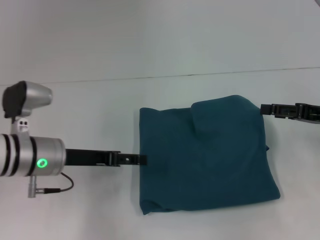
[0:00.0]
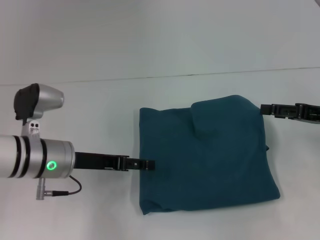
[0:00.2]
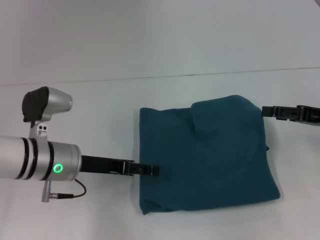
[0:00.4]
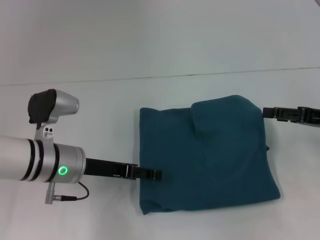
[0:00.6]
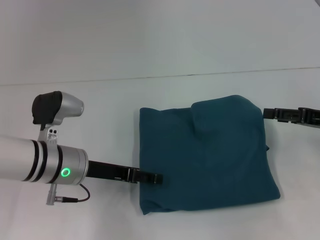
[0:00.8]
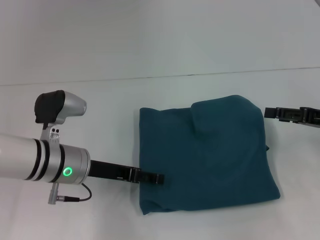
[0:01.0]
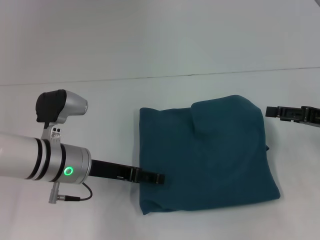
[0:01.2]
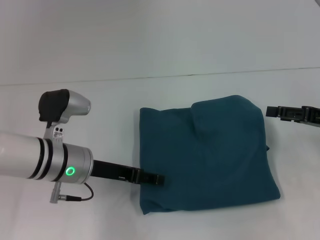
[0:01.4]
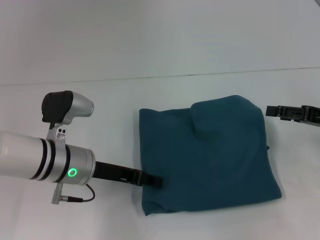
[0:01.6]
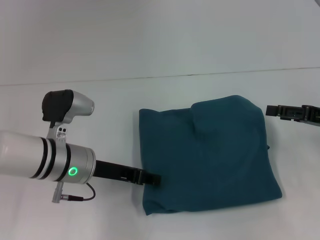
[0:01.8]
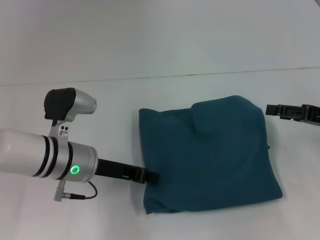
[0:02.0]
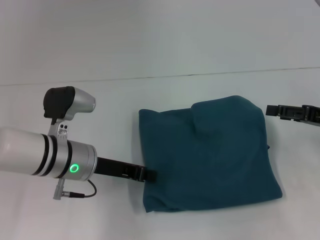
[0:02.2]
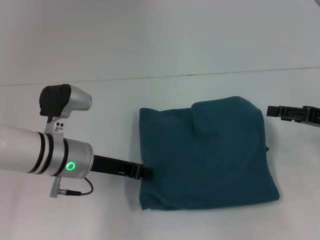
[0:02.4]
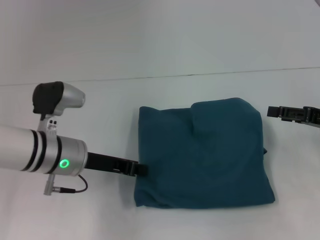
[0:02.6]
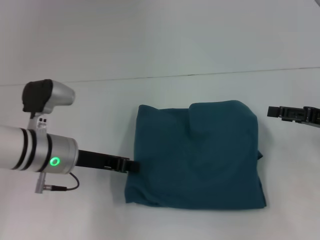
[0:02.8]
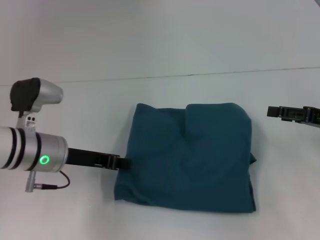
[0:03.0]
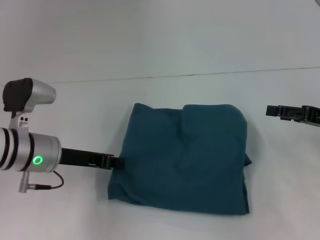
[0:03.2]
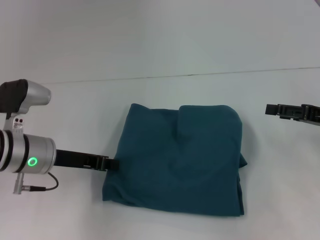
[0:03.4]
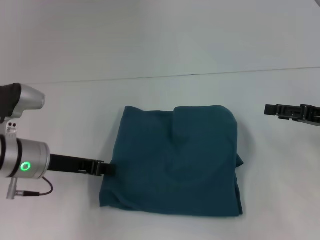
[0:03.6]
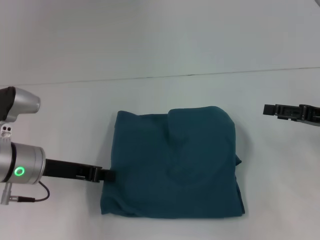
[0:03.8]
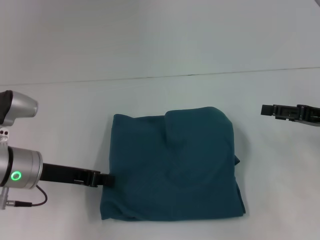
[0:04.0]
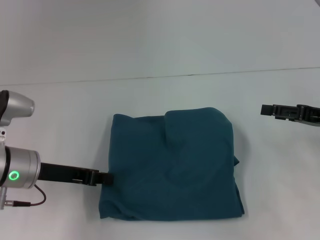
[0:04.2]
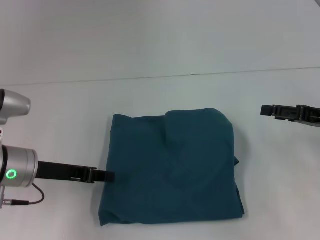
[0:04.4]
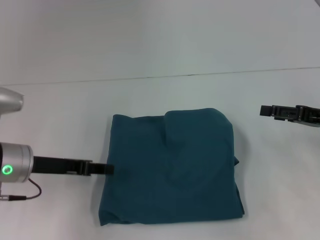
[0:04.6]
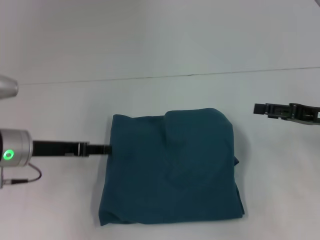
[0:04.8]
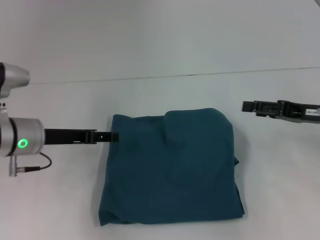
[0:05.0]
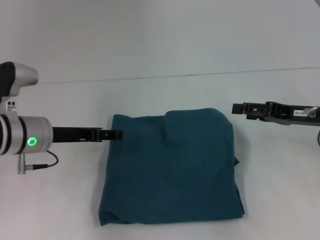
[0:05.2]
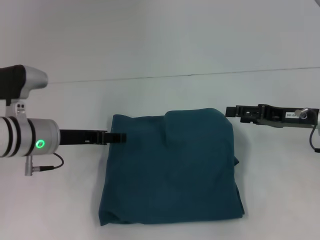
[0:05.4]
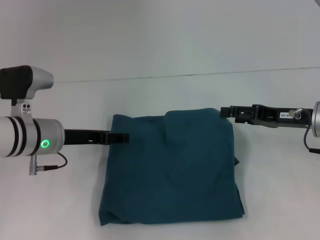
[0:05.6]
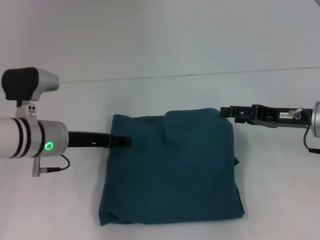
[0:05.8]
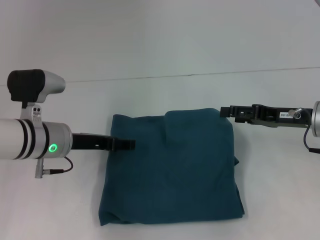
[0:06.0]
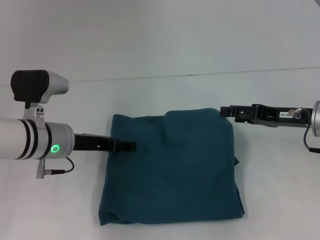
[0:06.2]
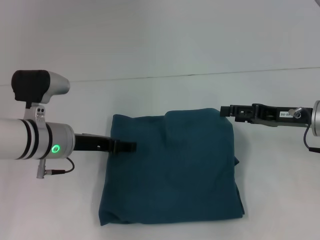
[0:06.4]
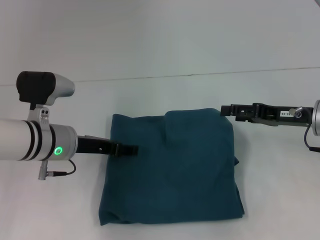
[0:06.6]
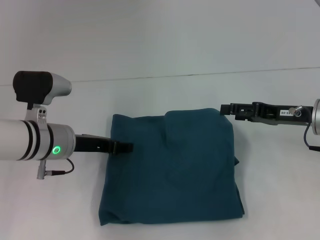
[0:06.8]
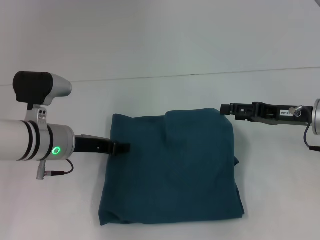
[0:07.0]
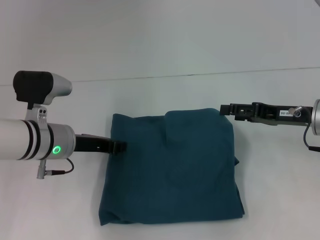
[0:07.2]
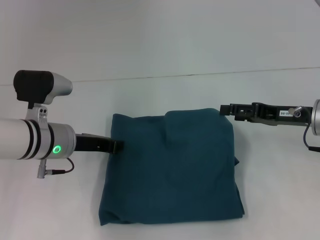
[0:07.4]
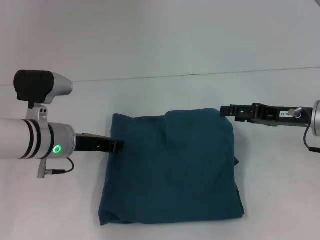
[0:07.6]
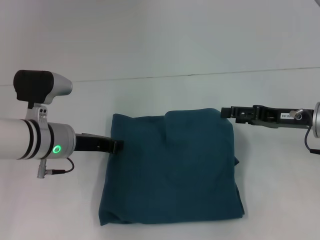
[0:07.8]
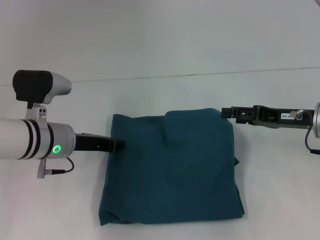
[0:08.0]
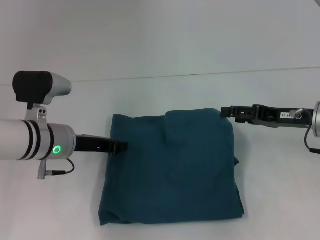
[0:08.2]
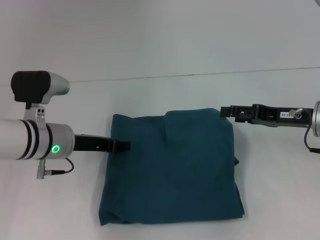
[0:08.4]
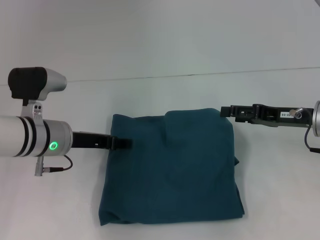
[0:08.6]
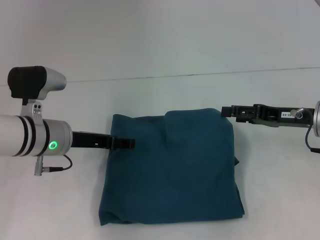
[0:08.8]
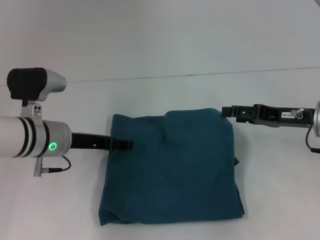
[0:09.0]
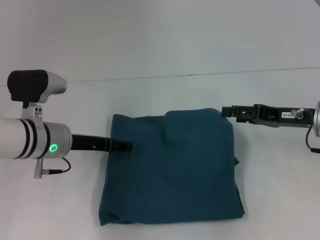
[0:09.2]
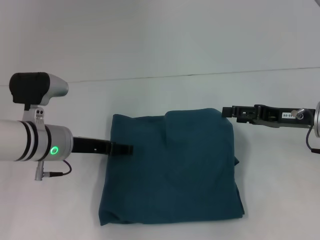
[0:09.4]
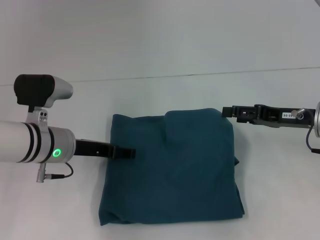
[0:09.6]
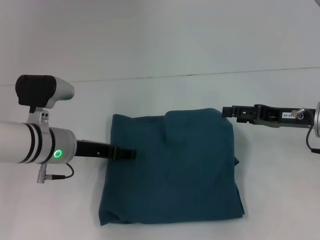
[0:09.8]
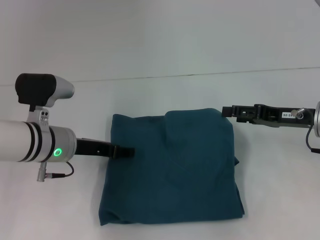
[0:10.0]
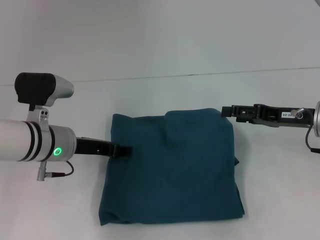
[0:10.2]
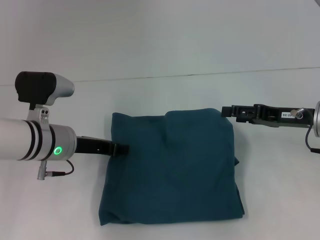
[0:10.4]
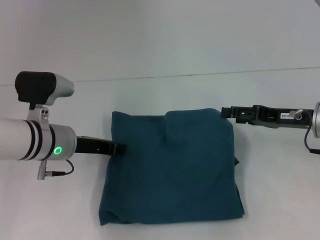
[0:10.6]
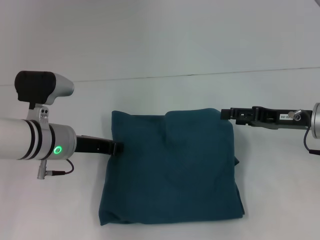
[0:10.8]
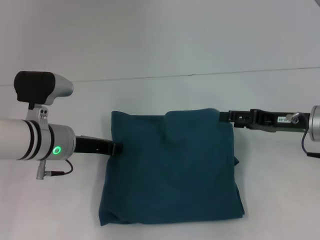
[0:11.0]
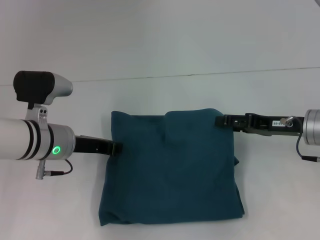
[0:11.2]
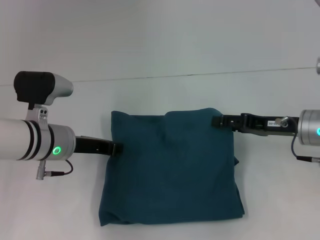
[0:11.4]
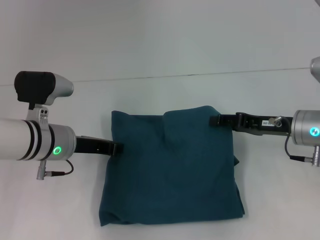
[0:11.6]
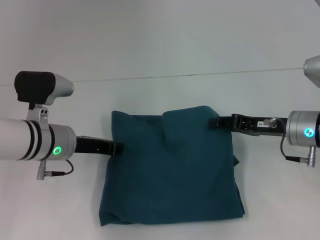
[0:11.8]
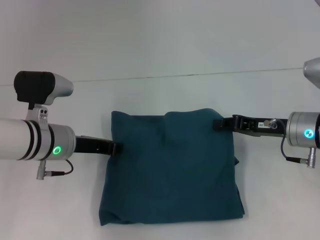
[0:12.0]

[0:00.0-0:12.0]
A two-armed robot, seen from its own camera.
0:00.0 to 0:01.6: The grippers stay close to where they were, moving slightly.
0:01.6 to 0:03.0: The left gripper closes up.
0:04.4 to 0:06.0: The left gripper changes place by approximately 5 cm, and opens. The right gripper goes roughly 5 cm to the left.
0:06.0 to 0:07.6: The left gripper closes up.
0:07.6 to 0:09.0: The left gripper opens its fingers.
0:09.0 to 0:10.4: The two grippers keep their place.
0:10.4 to 0:12.0: The left gripper closes its fingers; the right gripper closes its fingers.

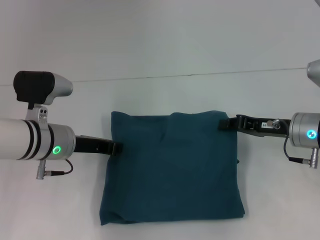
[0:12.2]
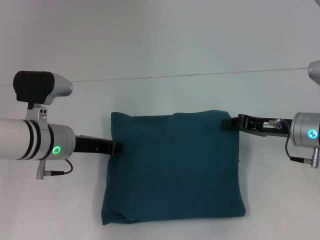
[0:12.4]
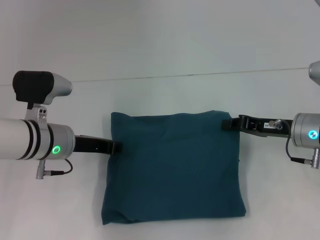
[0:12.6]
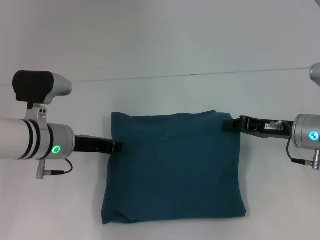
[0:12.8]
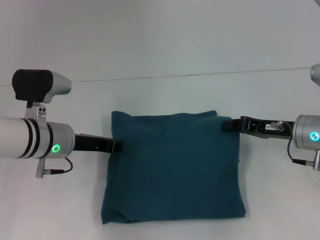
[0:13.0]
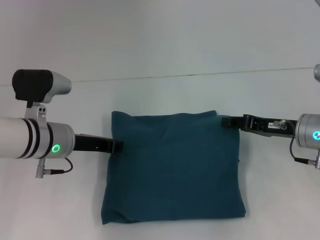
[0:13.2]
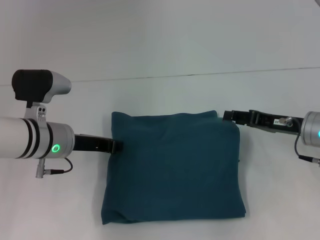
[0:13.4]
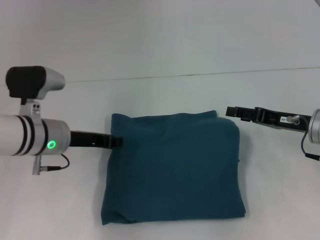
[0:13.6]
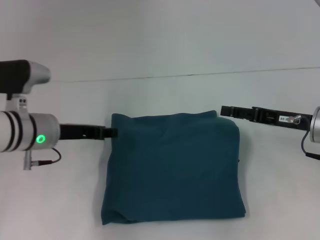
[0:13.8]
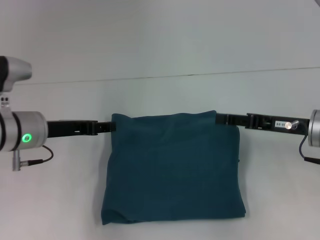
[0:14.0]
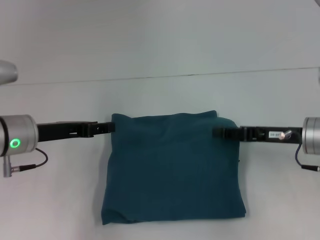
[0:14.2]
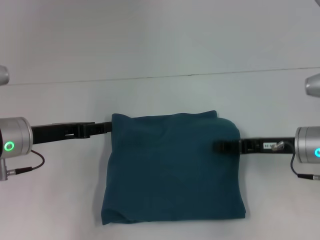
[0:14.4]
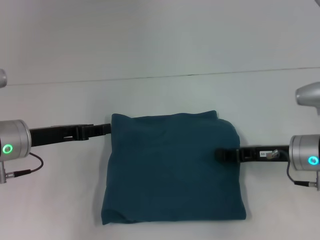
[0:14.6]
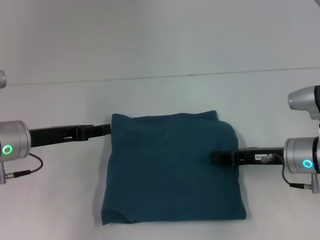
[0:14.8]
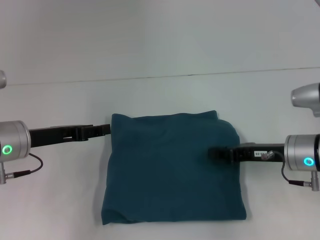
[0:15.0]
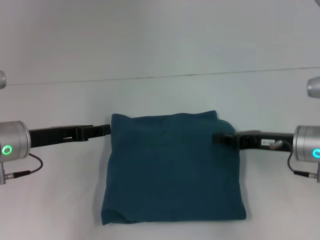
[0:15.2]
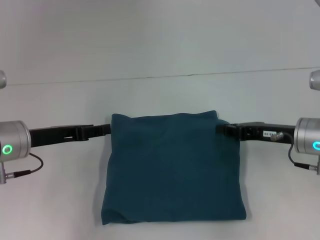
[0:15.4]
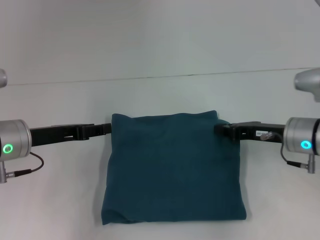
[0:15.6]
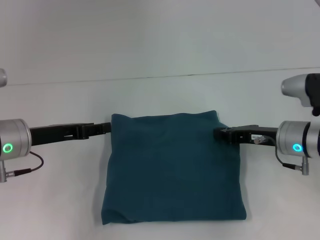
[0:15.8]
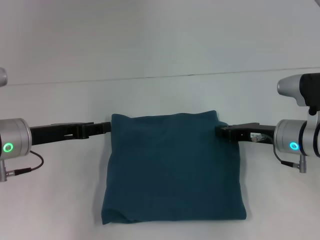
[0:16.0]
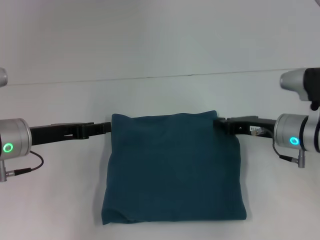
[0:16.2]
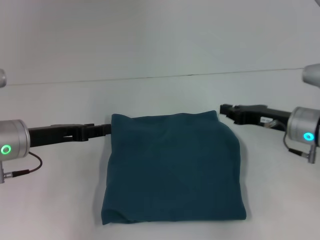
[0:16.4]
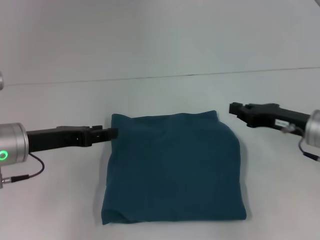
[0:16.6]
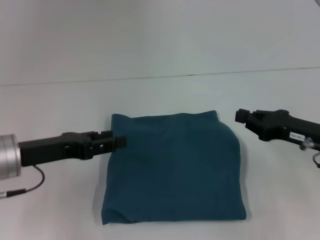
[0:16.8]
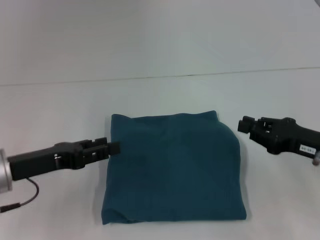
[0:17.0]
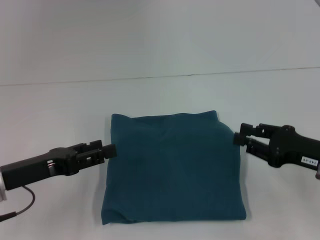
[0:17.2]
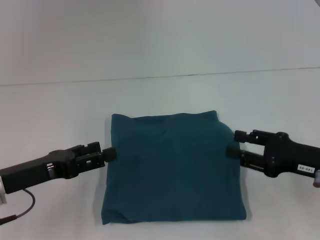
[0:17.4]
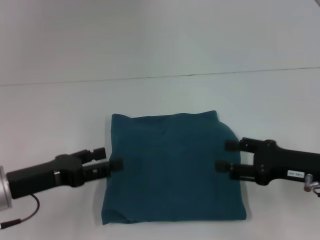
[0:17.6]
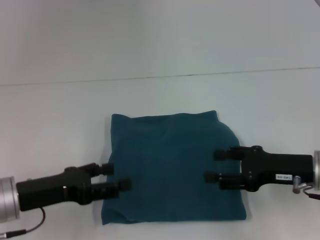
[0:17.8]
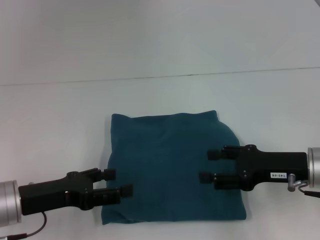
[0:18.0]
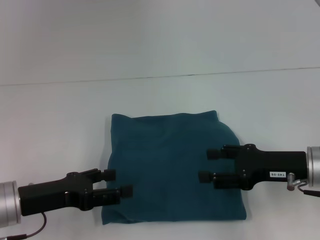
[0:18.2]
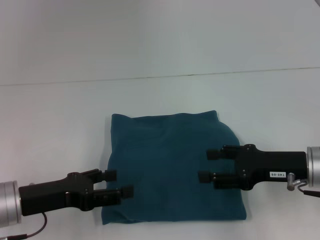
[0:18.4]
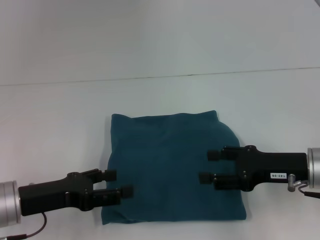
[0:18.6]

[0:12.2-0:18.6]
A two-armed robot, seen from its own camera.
0:12.2 to 0:13.8: The right gripper opens its fingers.
0:13.8 to 0:15.4: The left gripper shifts by some 5 cm. The right gripper closes.
0:15.4 to 0:17.0: Both grippers move backward, some 5 cm.
0:17.0 to 0:18.6: The right gripper opens up.

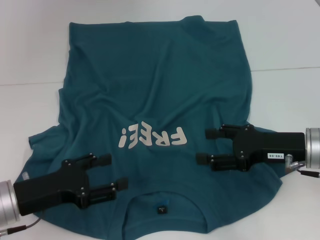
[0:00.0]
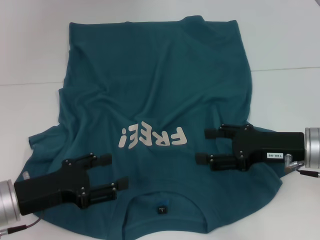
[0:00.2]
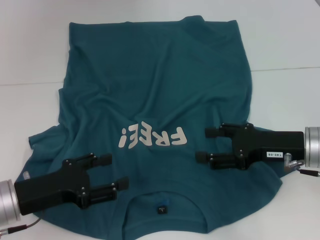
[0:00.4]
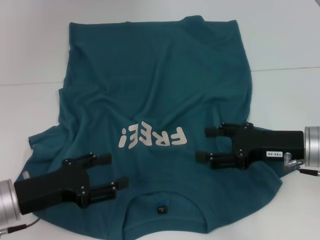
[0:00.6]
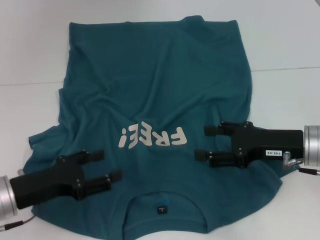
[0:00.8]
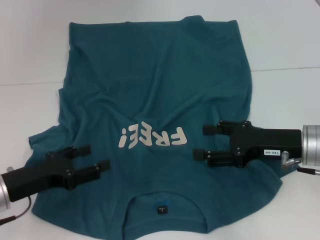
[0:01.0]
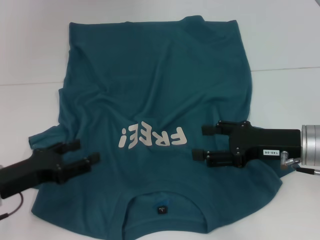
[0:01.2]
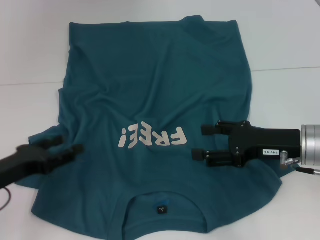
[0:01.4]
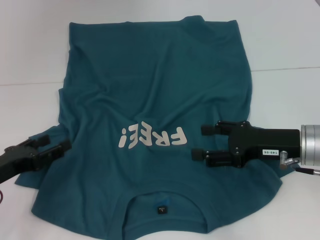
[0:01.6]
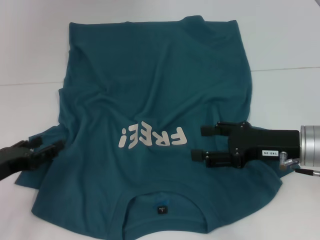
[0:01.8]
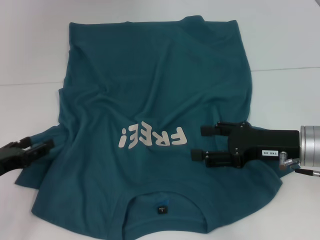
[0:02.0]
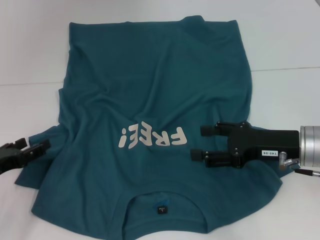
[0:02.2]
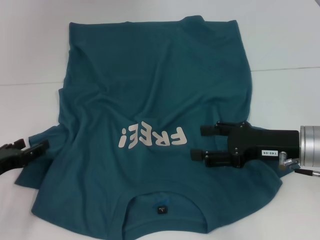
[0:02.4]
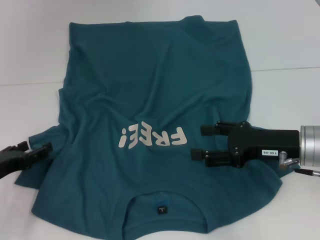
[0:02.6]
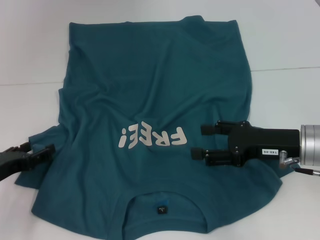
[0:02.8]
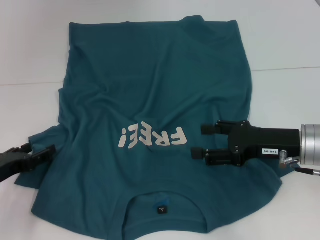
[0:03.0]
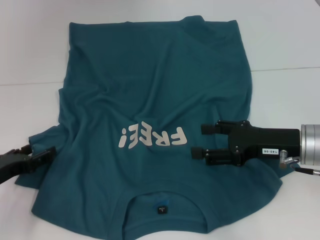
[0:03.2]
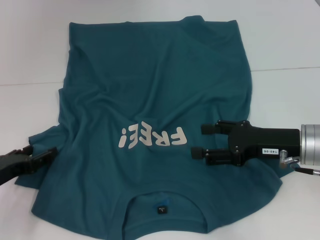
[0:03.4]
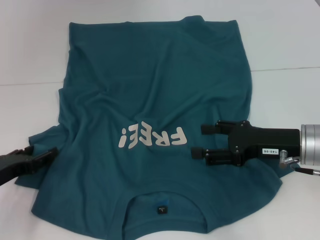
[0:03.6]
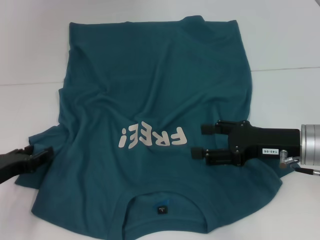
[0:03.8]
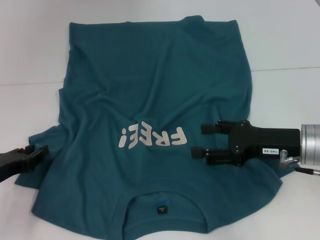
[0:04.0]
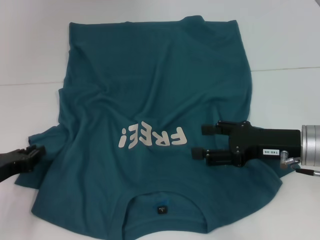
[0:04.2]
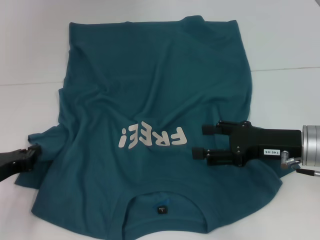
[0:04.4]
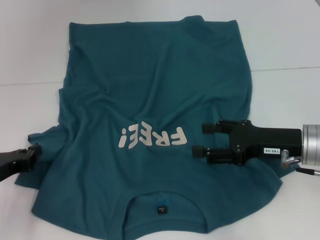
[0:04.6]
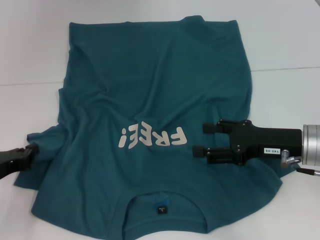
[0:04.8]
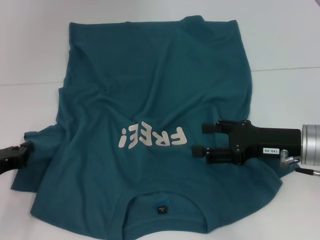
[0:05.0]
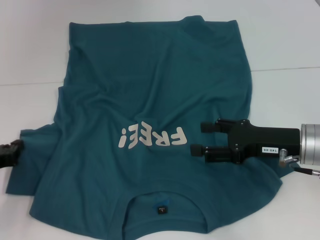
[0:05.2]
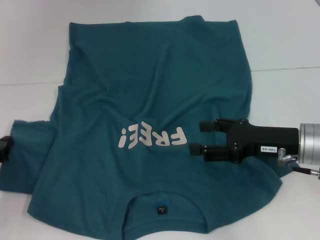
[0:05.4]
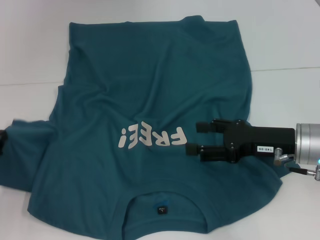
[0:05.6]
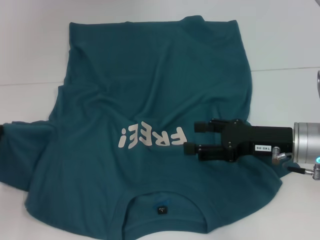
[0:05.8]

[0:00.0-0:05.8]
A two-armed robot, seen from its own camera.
0:01.4 to 0:02.8: The grippers make only small movements.
0:02.8 to 0:04.4: The left gripper closes up.
0:04.4 to 0:05.8: The left gripper moves some 5 cm.
